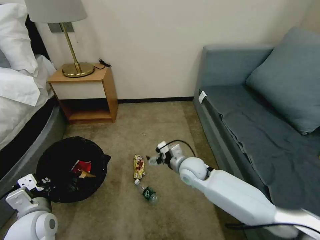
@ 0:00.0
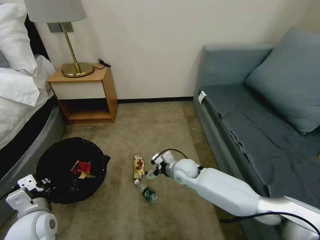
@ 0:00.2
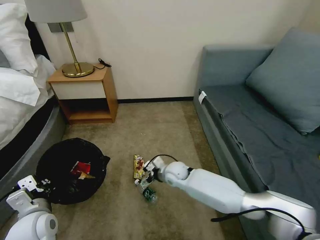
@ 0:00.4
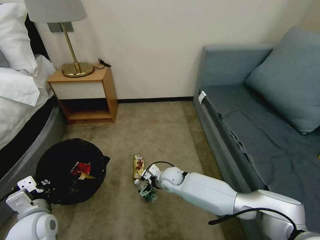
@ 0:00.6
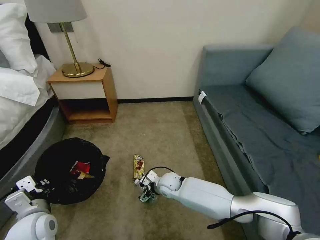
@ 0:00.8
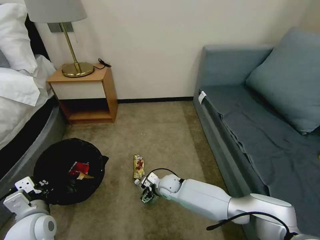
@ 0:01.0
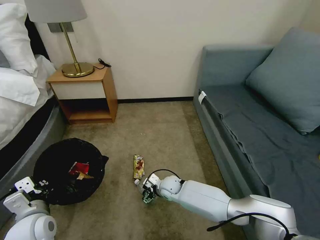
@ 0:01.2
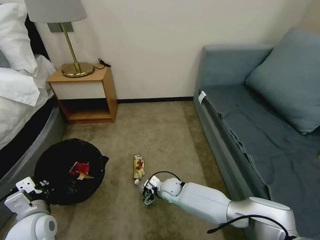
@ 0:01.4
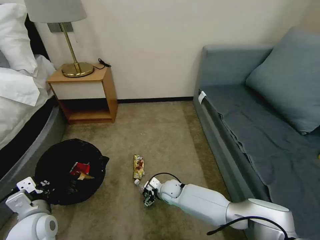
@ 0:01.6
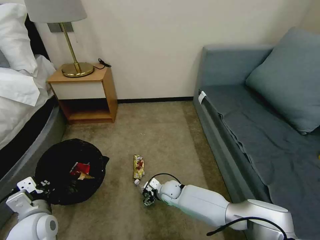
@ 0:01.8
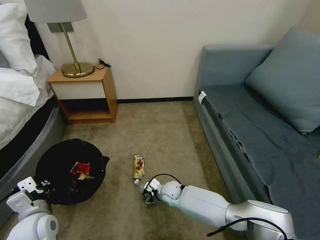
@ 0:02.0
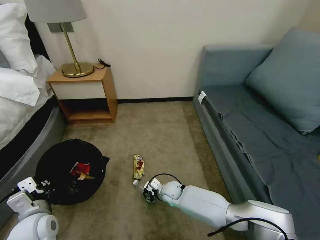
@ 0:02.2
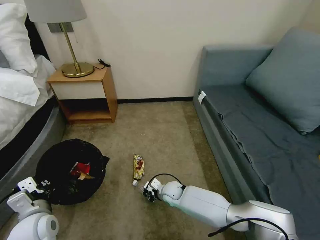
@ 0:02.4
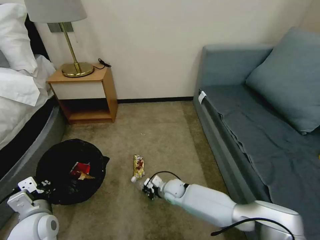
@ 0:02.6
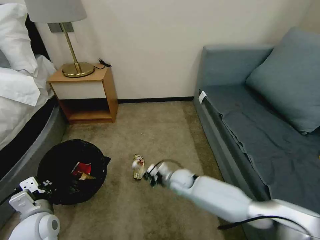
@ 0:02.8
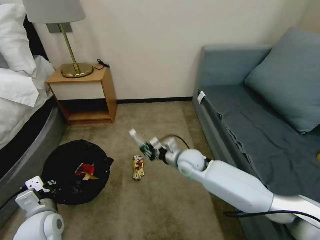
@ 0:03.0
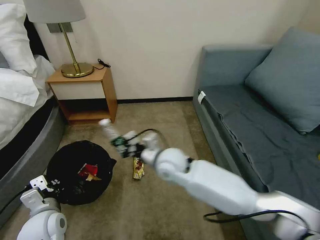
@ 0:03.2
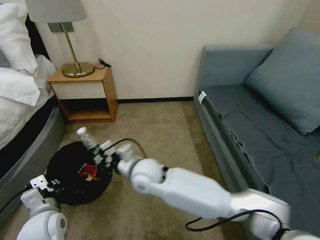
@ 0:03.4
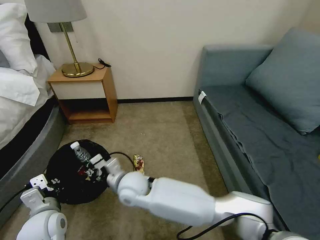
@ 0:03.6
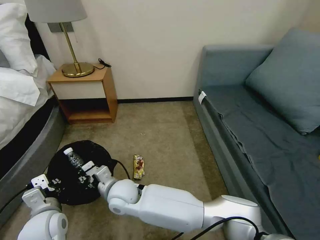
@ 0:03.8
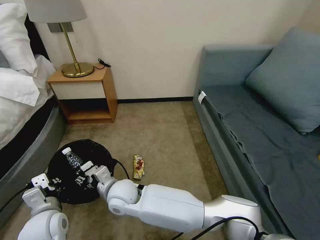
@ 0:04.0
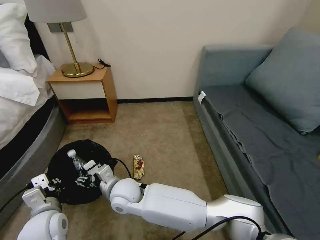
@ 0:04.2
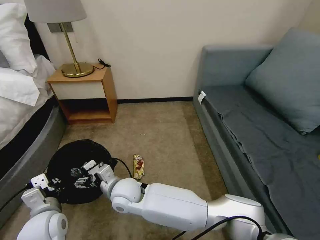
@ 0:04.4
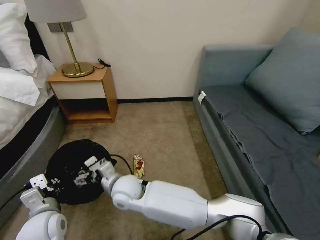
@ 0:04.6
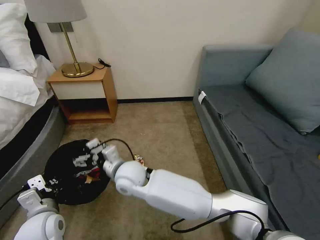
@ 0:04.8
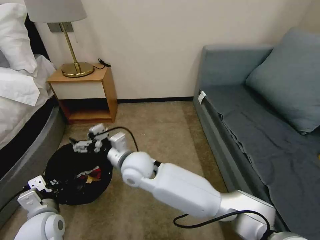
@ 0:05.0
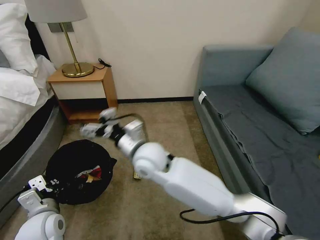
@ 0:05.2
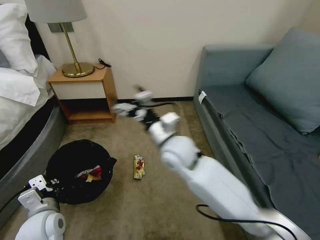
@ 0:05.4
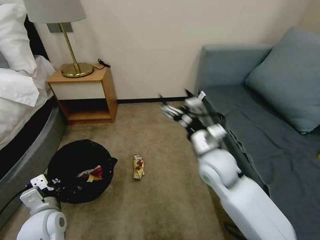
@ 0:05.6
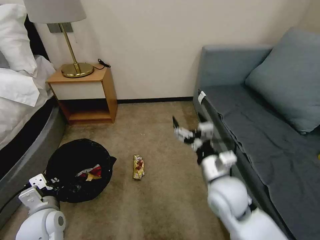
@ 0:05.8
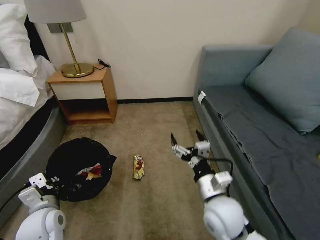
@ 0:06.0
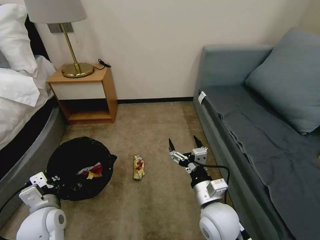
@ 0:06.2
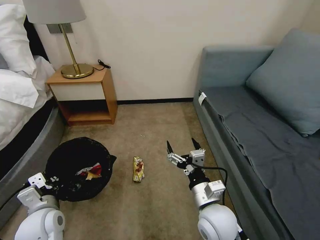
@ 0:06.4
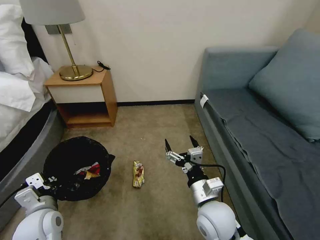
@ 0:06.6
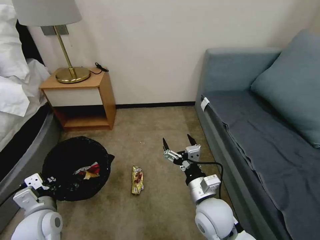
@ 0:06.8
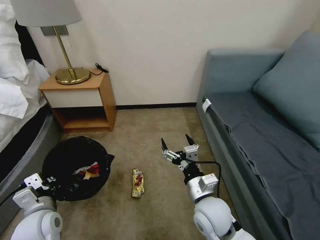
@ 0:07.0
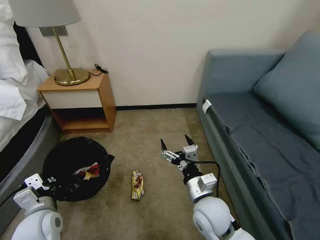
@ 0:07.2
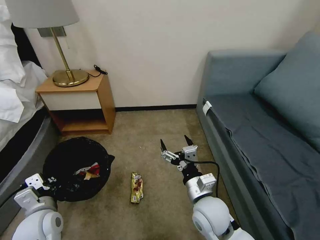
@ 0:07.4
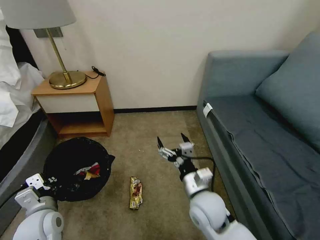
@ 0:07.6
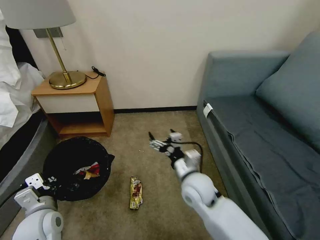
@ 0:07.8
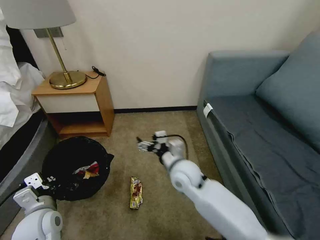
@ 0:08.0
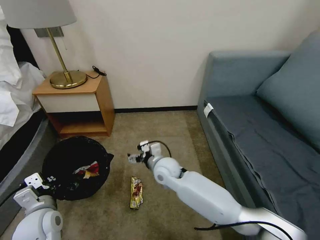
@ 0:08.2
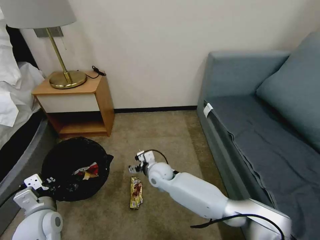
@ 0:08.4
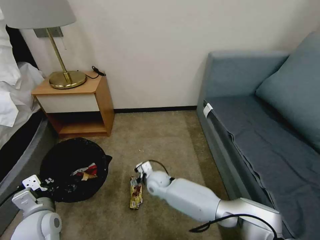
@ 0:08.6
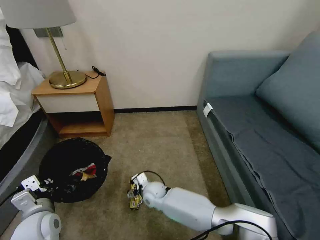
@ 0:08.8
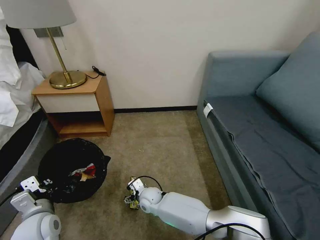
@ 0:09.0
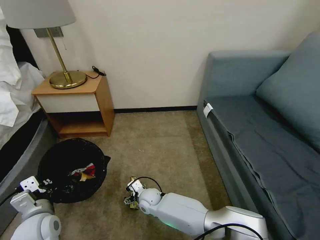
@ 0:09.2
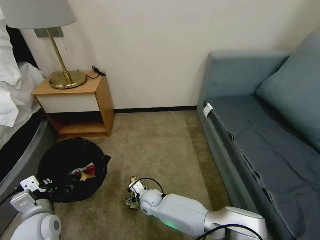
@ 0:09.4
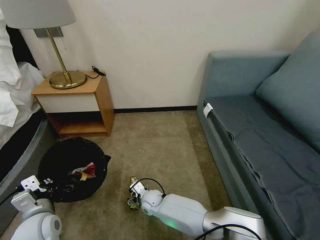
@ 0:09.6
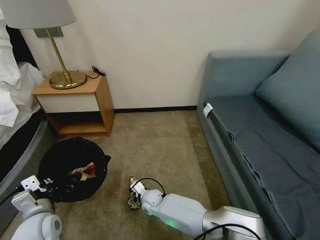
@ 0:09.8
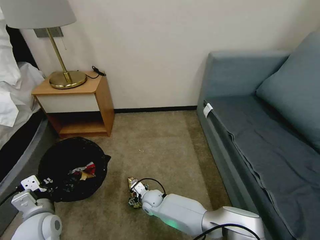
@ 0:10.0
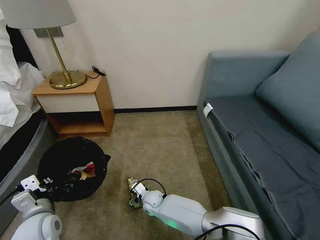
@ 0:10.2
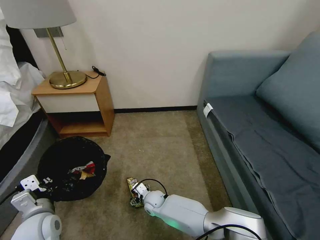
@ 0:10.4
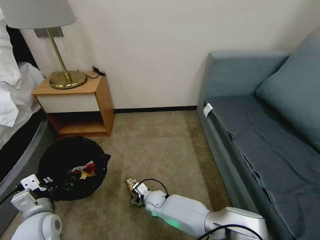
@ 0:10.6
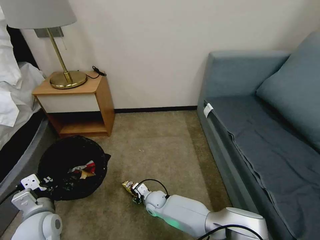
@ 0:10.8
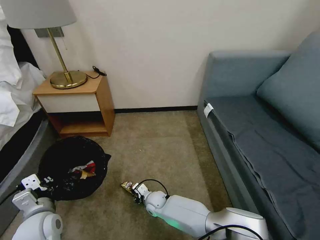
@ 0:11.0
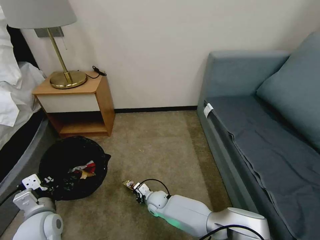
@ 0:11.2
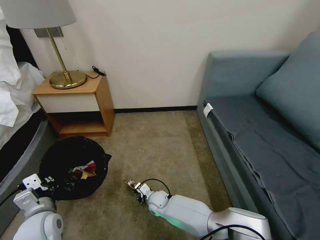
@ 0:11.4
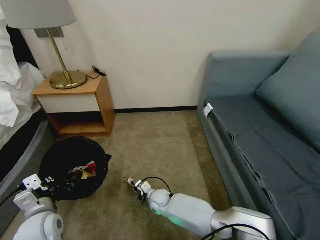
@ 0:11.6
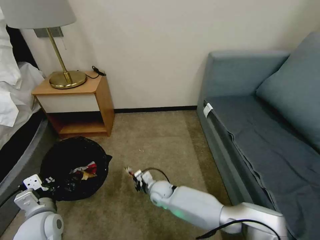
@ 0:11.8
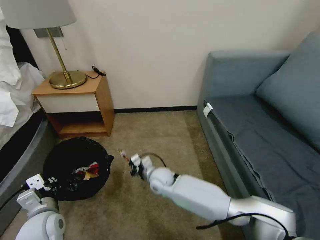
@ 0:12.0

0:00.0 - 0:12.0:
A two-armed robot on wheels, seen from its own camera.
Task of the whole recording: Pick up the trash bin, then pick up the garbage on the floor and place it into the trash bin.
0:00.0 - 0:01.6: The right gripper is displaced downward by about 20 cm.
0:01.6 - 0:03.0: The right gripper heads upward, covering some 15 cm, and closes up.
0:03.0 - 0:04.4: The right gripper goes approximately 25 cm to the left and backward, and opens.
0:04.4 - 0:06.0: The right gripper goes about 25 cm to the right.
0:07.6 - 0:09.0: The right gripper goes some 30 cm downward, to the left and forward.
0:09.0 - 0:10.4: There are only small adjustments of the grippers.
0:10.4 - 0:12.0: The right gripper travels upward by roughly 10 cm, and closes its fingers.

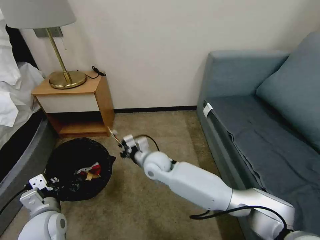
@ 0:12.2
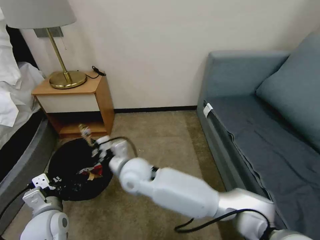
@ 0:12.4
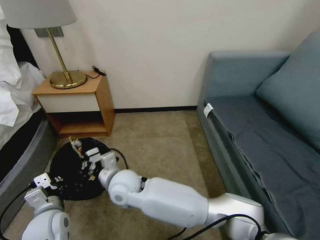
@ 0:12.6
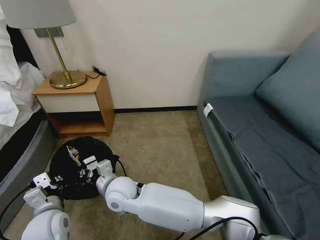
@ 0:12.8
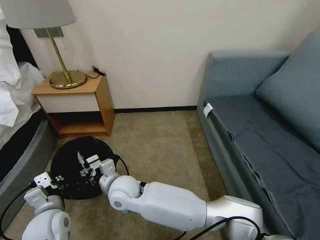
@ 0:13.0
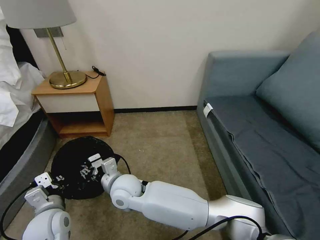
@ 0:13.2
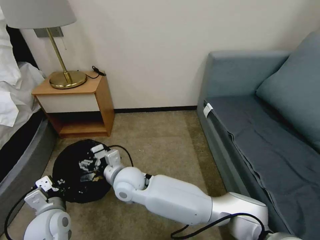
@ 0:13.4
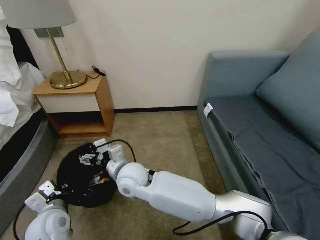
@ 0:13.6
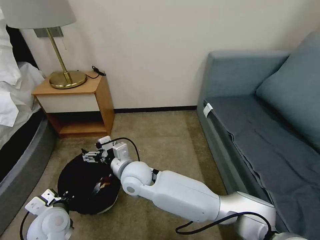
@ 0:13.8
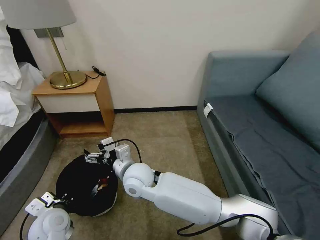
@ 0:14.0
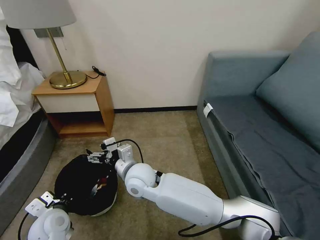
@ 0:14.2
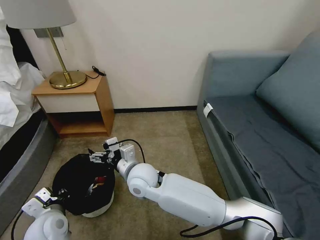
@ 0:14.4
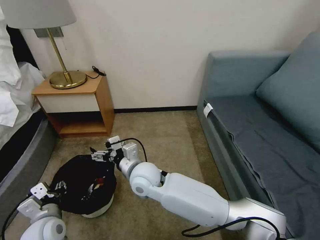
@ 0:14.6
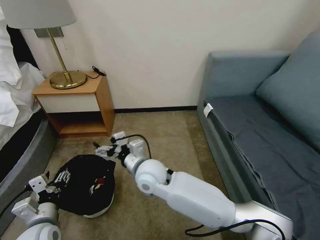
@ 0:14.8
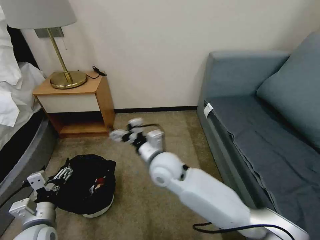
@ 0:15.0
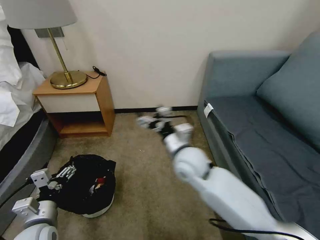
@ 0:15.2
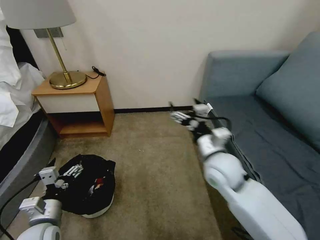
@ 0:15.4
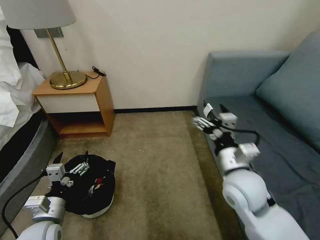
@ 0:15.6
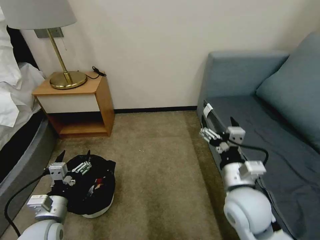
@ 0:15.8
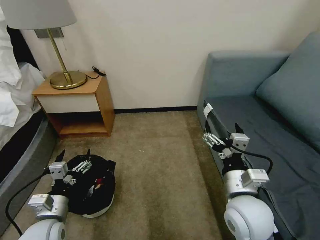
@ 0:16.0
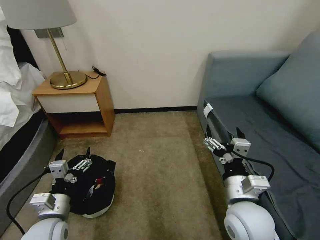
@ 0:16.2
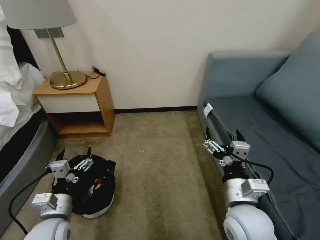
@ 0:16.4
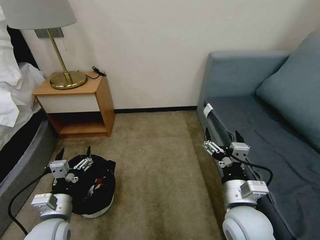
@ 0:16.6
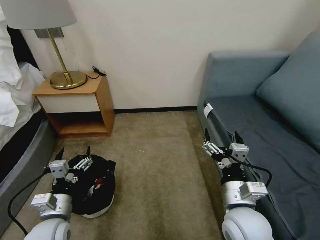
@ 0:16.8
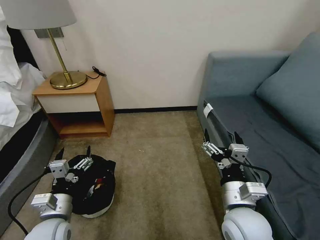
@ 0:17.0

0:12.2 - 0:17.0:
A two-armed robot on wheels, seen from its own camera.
Task of the whole recording: Pick up the trash bin, then pick up the garbage on the floor and place it into the trash bin.
0:12.2 - 0:13.8: The right gripper moves backward and to the left, roughly 10 cm, and opens up.
0:13.8 - 0:15.4: The right gripper is displaced to the right by about 25 cm. The left gripper opens its fingers.
0:15.4 - 0:17.0: The right gripper shifts about 15 cm backward.
